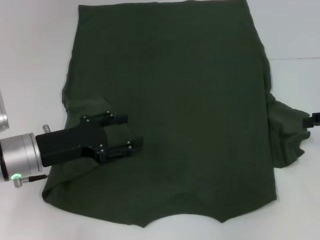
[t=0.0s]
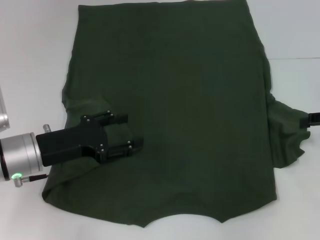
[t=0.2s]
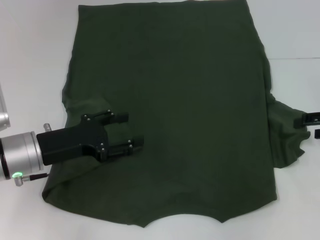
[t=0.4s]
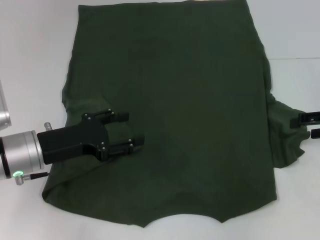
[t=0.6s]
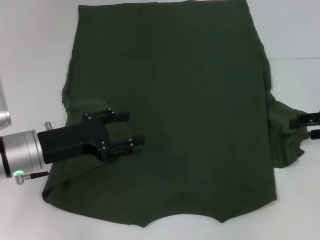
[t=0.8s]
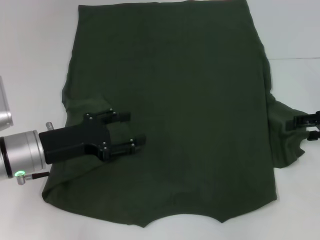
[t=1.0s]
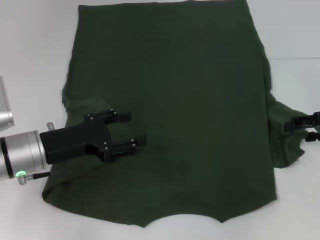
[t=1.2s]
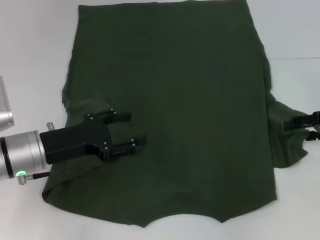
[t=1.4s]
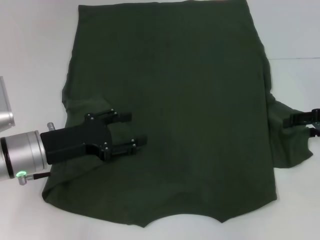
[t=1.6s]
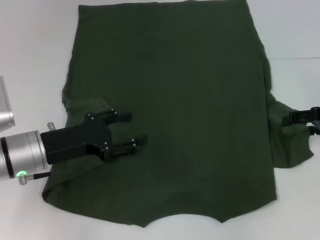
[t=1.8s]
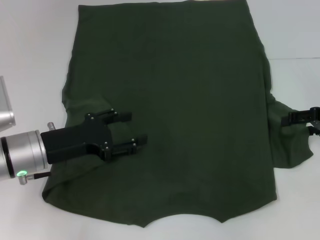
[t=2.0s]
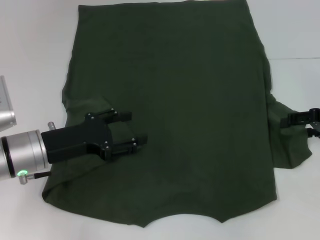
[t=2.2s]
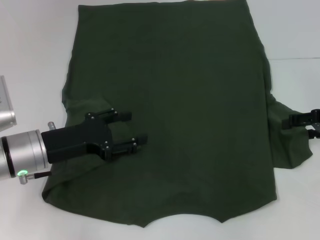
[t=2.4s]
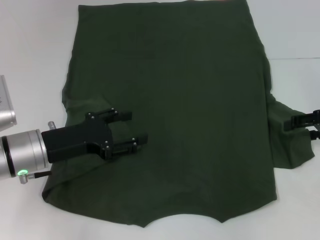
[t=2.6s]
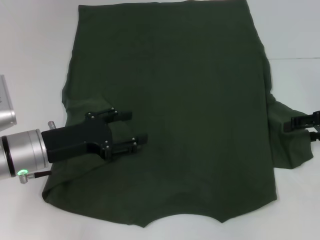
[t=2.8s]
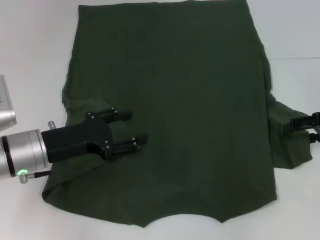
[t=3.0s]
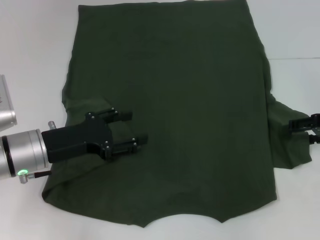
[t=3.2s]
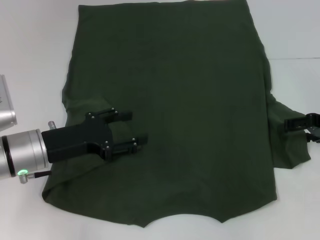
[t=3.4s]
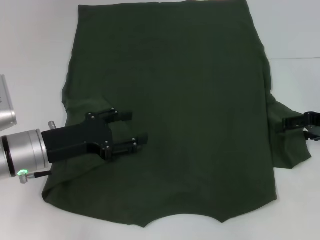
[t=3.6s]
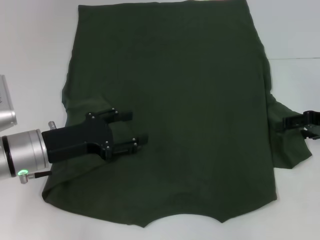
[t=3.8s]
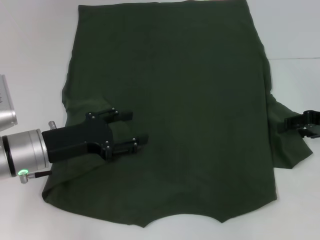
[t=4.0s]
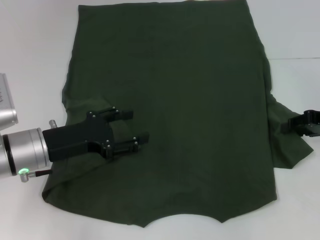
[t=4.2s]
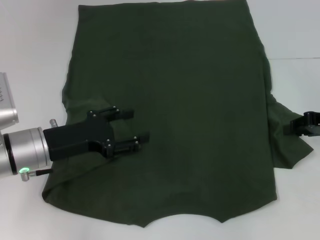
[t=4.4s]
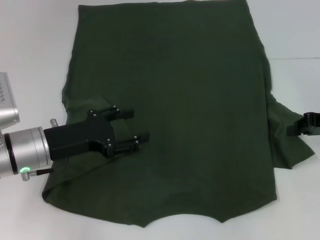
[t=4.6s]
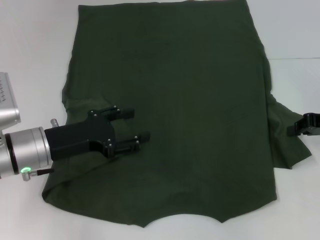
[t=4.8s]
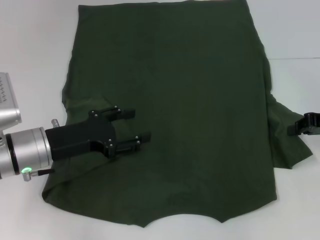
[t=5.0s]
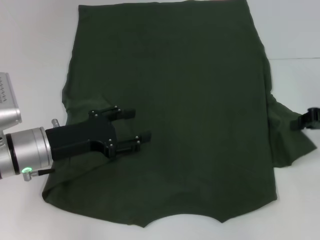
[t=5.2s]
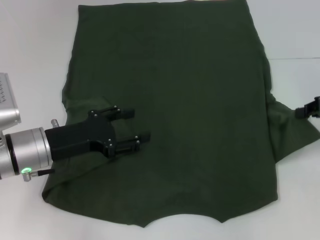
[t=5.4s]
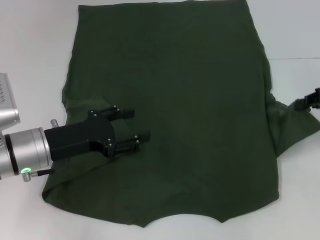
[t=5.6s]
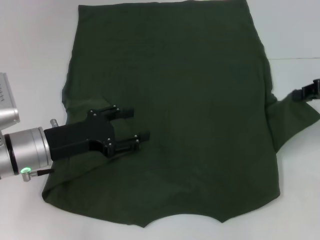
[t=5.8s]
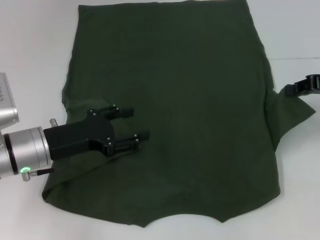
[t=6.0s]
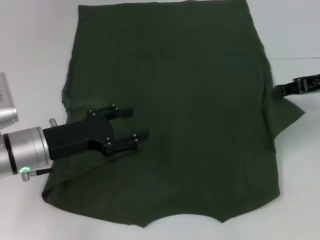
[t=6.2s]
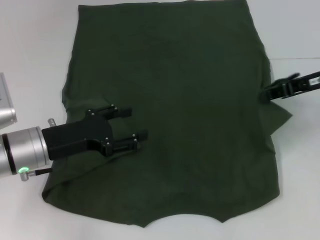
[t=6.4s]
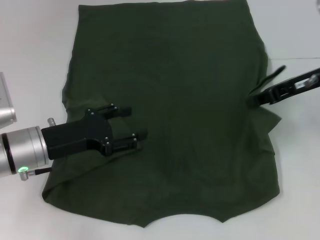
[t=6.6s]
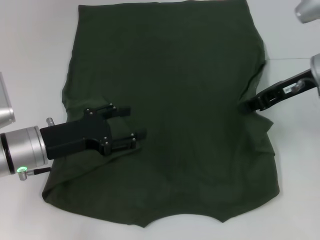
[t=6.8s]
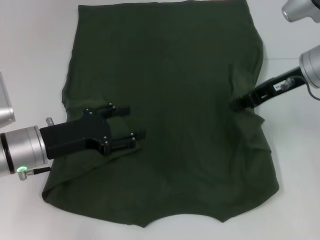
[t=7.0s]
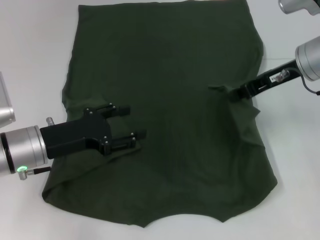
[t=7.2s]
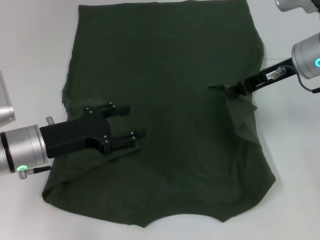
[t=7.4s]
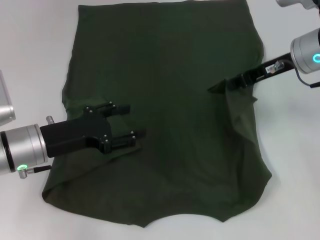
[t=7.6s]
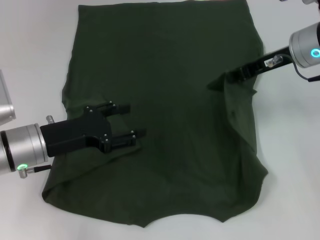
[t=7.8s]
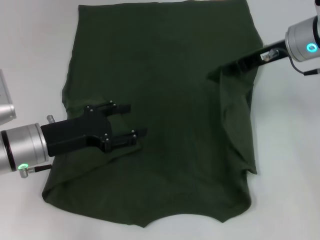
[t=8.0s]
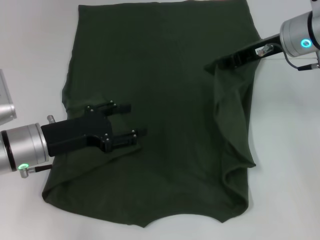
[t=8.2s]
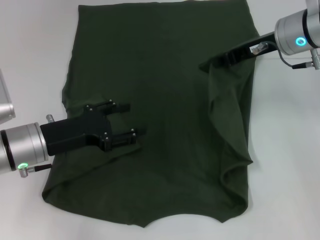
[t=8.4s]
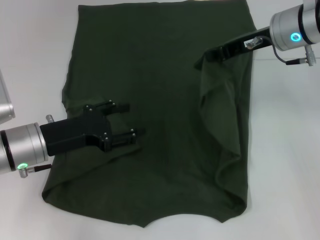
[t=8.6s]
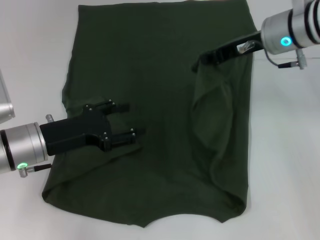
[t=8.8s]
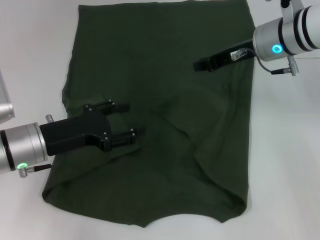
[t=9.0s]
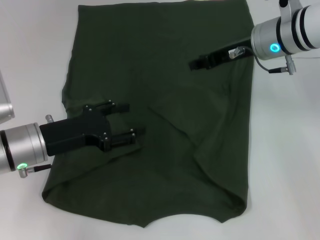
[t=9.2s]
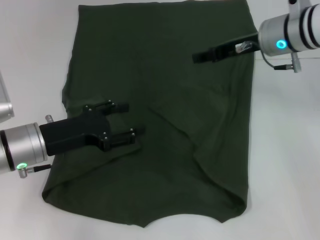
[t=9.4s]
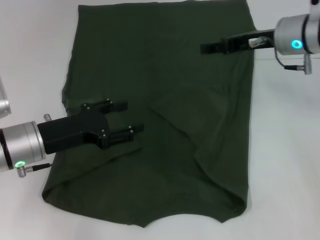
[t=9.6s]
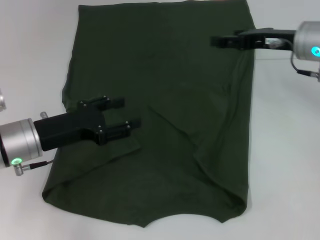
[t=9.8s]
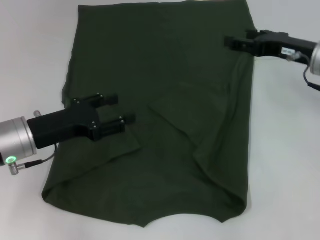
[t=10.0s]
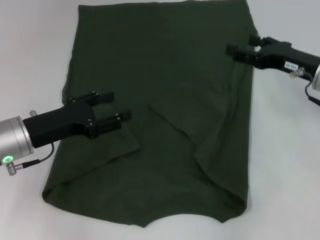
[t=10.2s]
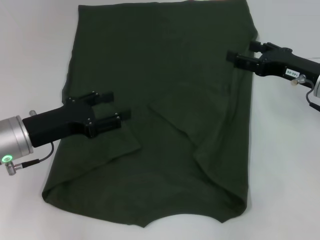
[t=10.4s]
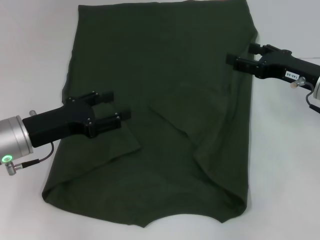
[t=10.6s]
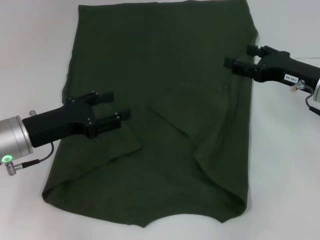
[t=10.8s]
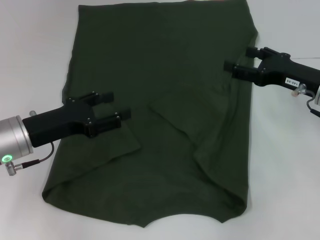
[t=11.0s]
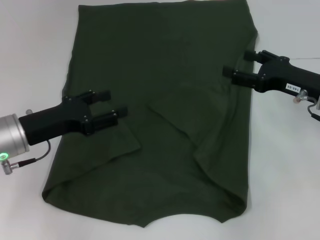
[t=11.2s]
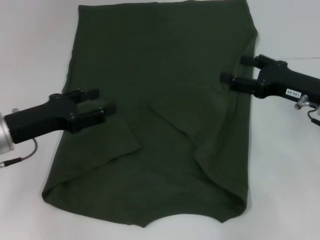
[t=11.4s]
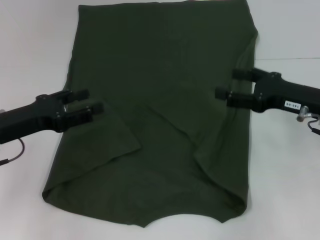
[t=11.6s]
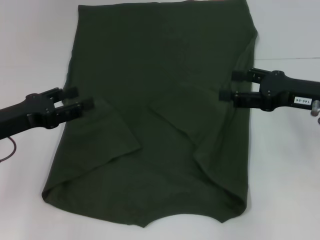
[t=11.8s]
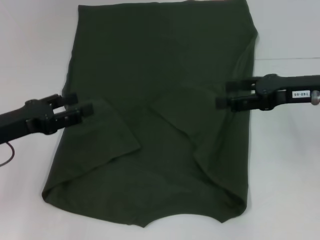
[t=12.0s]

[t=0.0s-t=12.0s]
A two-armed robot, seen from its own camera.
Step, t=0.0s to t=8.8s: Fold the bottom right sleeve with your right hand.
t=0.0s to t=1.6s: The grippers stay close to where they were, moving slightly.
t=1.6s to t=3.0s: Neither gripper changes place.
t=3.0s to t=4.4s: The right gripper closes.
t=4.4s to t=6.0s: The right gripper travels upward by approximately 5 cm, and closes up.
t=6.0s to t=7.6s: The right gripper moves to the left, approximately 10 cm.
t=7.6s to t=9.0s: The right gripper moves to the left, roughly 5 cm.
t=9.0s to t=10.4s: The right gripper goes some 15 cm to the right, backward and downward, and opens its fingers.
t=10.4s to t=12.0s: The right gripper shifts by approximately 5 cm. Meanwhile the left gripper moves to the left, some 5 cm.

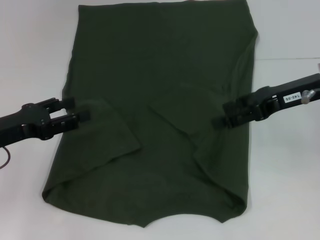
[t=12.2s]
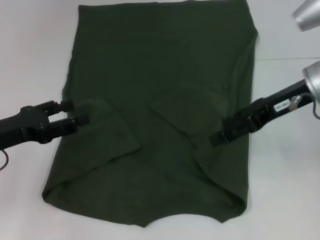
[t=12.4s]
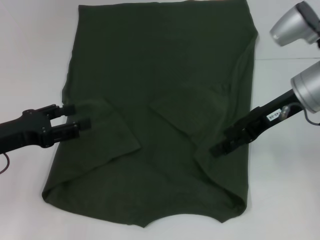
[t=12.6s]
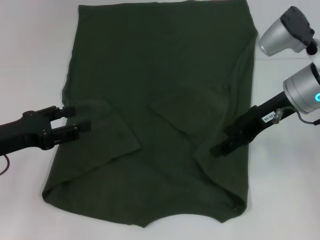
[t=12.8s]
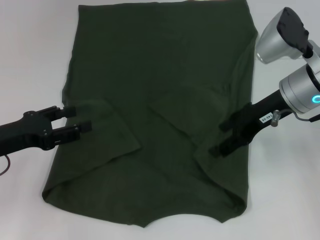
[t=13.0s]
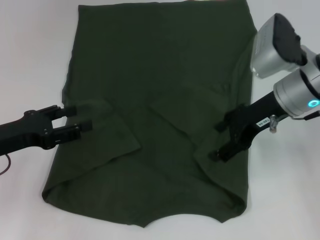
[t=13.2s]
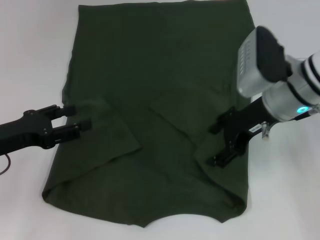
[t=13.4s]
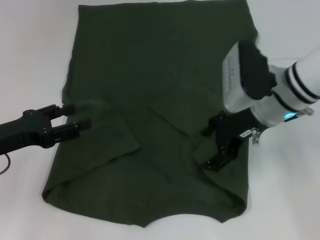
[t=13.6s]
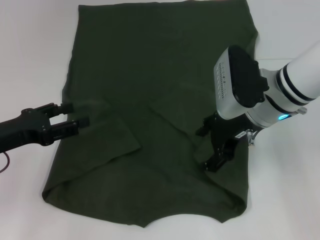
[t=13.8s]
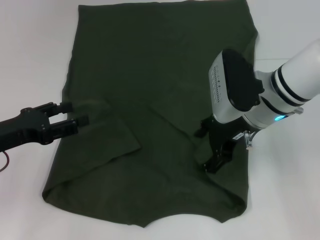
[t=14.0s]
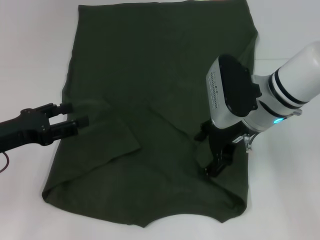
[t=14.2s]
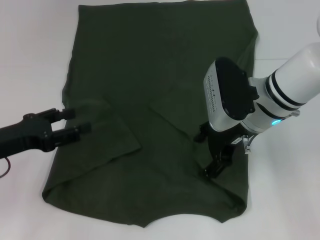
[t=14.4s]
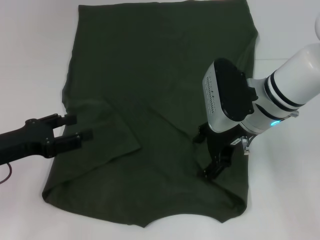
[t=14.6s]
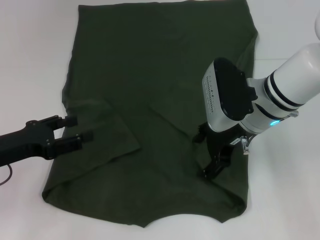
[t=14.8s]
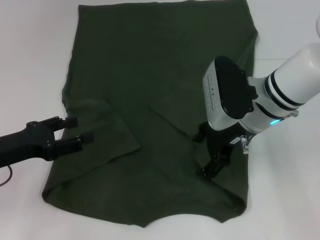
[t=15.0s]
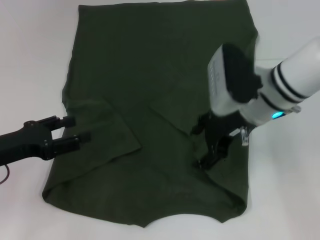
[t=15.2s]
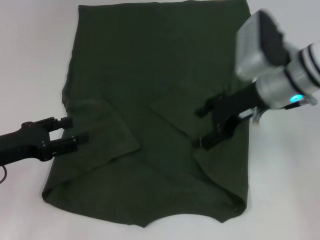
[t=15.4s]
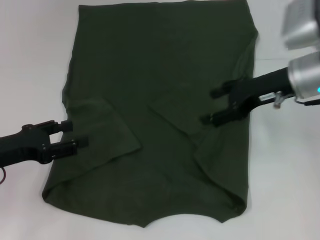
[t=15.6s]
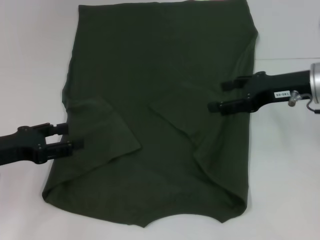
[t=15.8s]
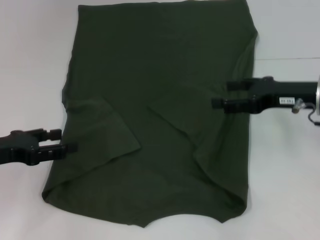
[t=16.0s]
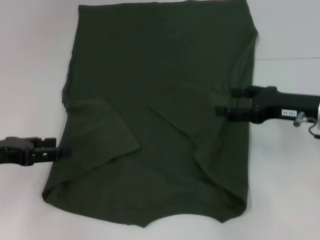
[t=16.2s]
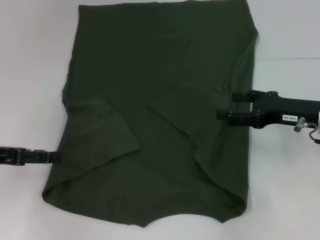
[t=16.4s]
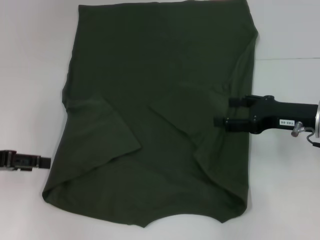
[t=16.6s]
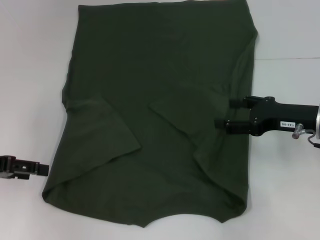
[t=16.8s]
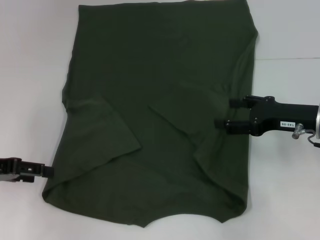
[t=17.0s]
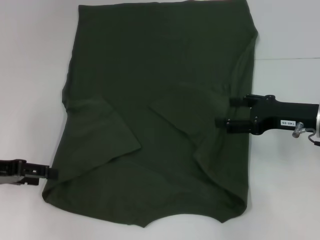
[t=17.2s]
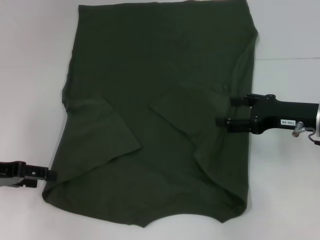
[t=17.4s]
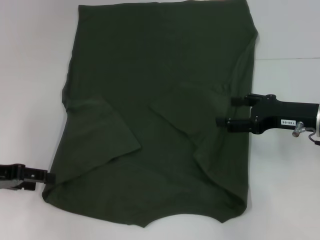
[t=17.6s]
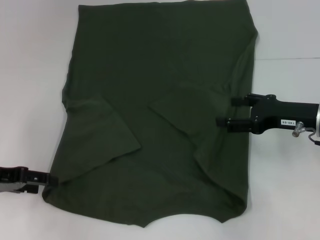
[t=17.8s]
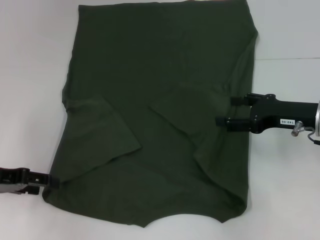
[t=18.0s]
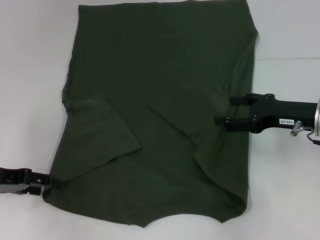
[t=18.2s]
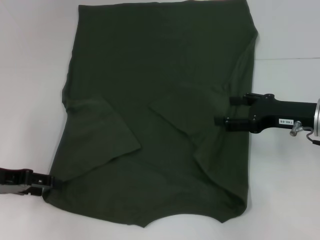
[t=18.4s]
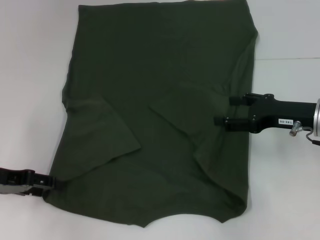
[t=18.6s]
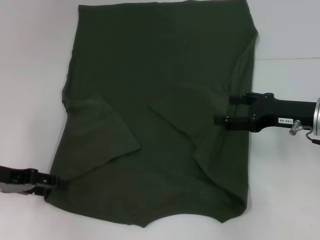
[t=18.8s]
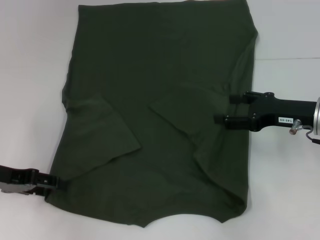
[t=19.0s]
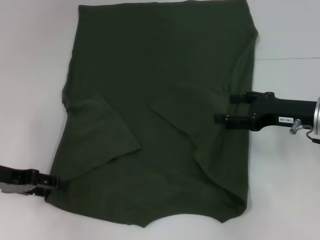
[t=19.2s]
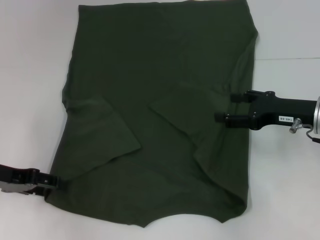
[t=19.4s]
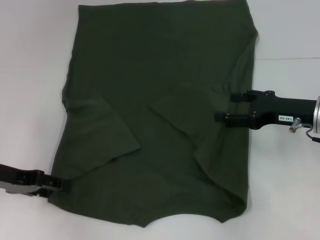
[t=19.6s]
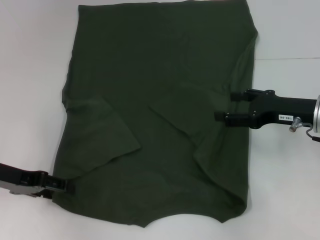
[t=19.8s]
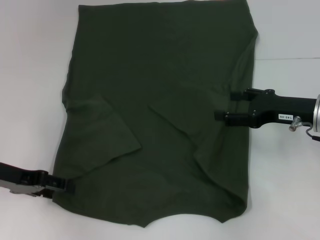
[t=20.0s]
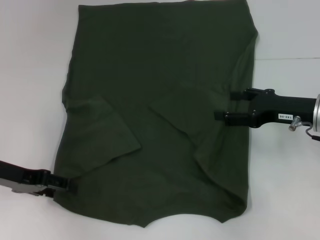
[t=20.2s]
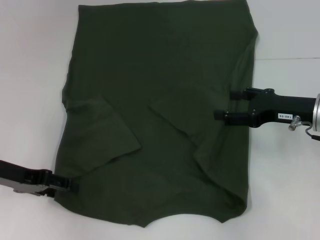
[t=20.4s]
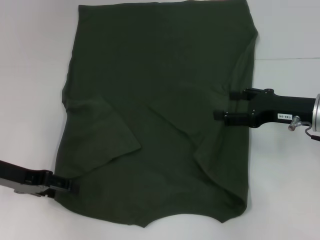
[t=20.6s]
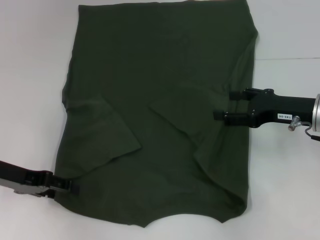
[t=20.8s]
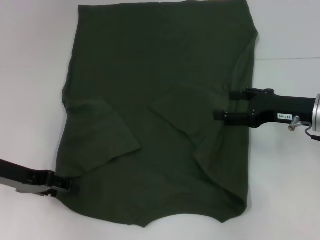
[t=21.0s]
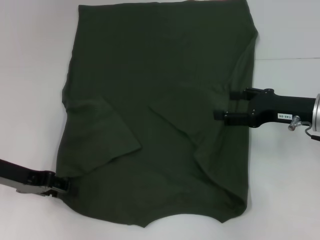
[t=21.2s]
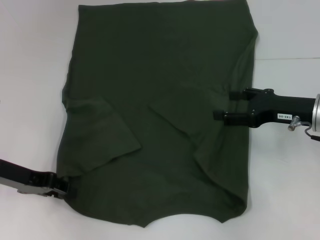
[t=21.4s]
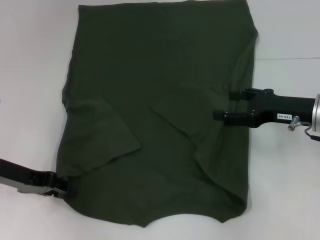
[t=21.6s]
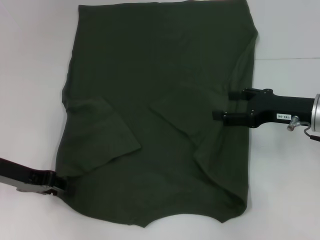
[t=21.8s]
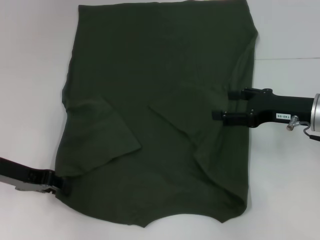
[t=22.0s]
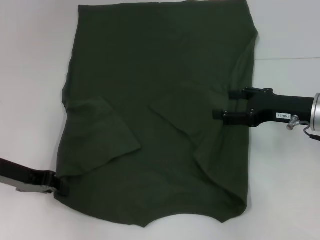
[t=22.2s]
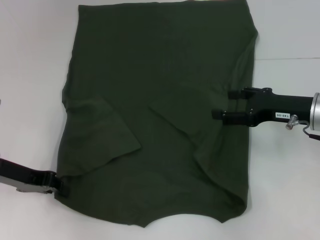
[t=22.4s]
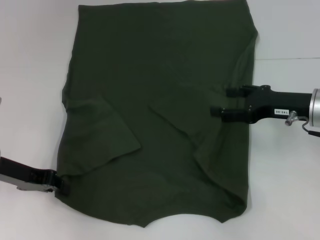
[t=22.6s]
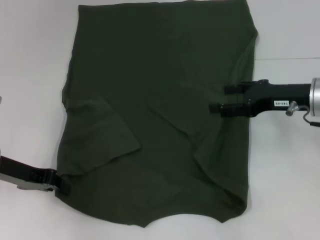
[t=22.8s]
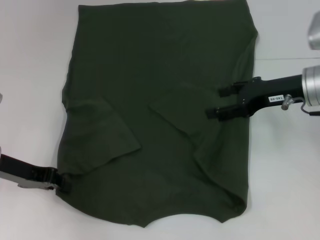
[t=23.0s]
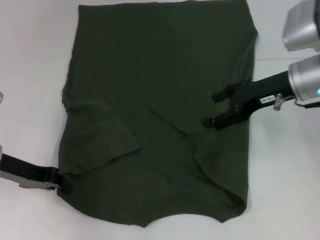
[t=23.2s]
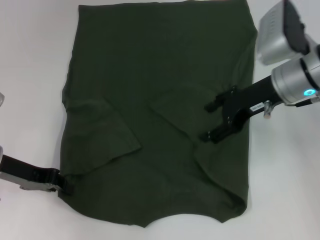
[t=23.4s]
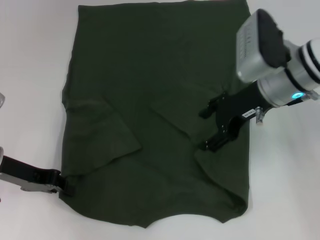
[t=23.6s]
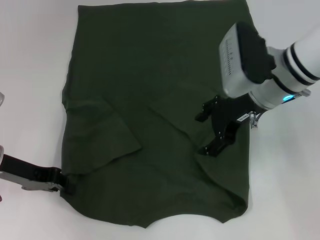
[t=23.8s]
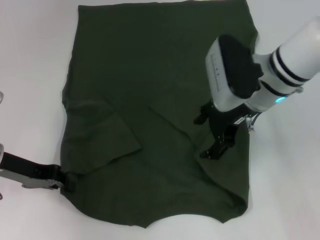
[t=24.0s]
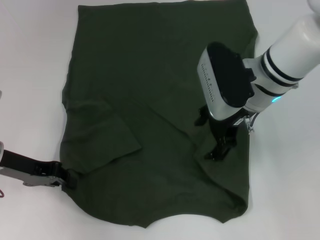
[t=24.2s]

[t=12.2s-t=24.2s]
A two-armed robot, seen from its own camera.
Step, t=12.2s to t=21.6s: Grab the bottom left corner with your left hand.
t=12.2s to t=13.8s: The right gripper shifts approximately 10 cm to the left.
t=13.8s to t=15.2s: The grippers make only small movements.
t=15.2s to t=16.6s: The right gripper goes about 10 cm to the right; the left gripper shifts by approximately 5 cm.
t=16.6s to t=19.8s: The grippers move only a little.
t=19.8s to t=21.2s: Both grippers stay about where they are.
t=21.2s to t=22.6s: The left gripper closes its fingers.
t=22.6s to t=24.2s: The right gripper moves to the left and upward, some 15 cm.
